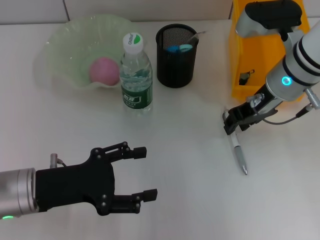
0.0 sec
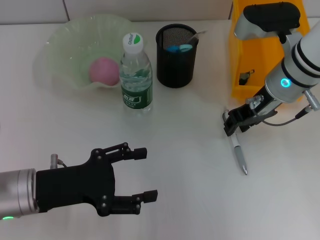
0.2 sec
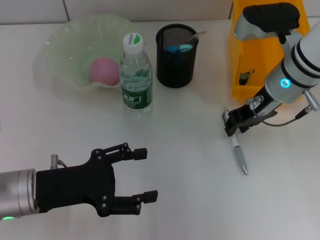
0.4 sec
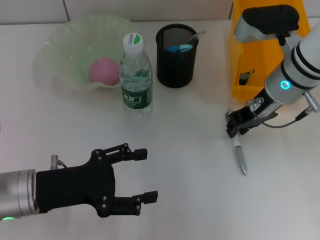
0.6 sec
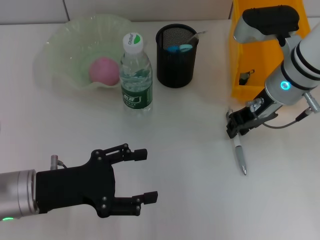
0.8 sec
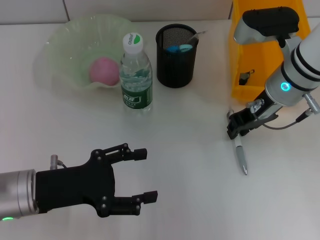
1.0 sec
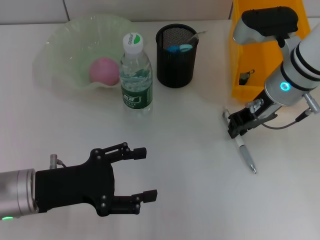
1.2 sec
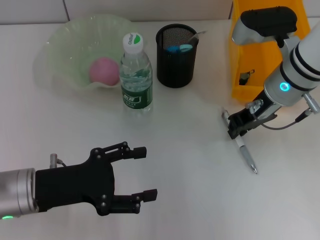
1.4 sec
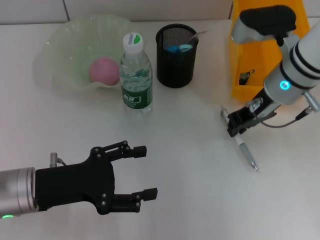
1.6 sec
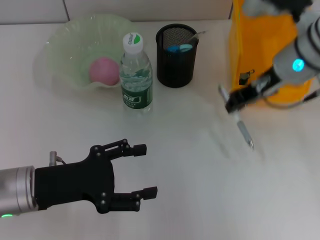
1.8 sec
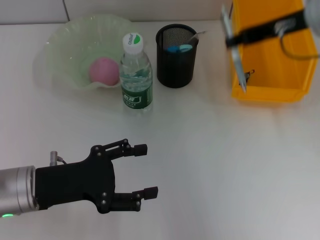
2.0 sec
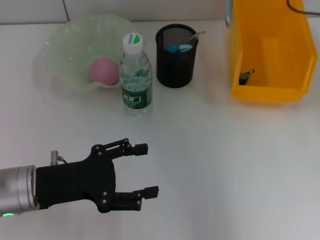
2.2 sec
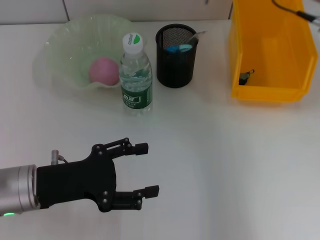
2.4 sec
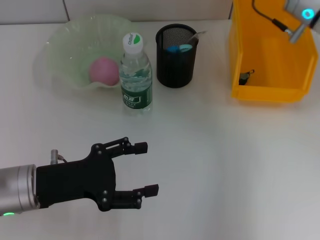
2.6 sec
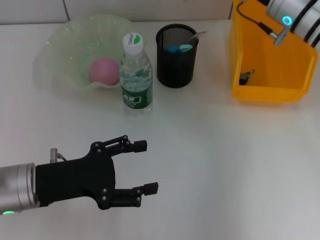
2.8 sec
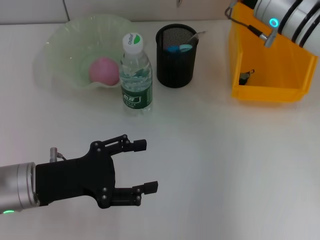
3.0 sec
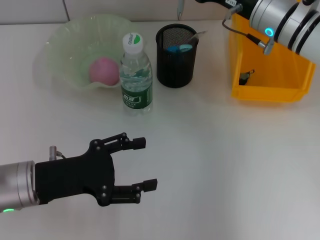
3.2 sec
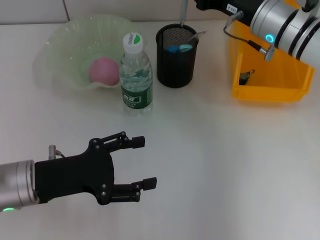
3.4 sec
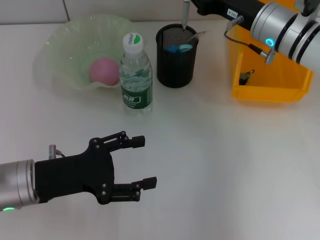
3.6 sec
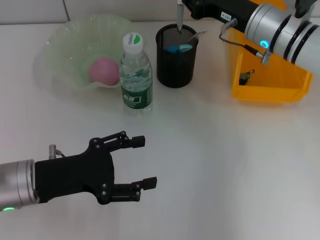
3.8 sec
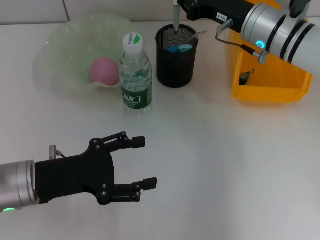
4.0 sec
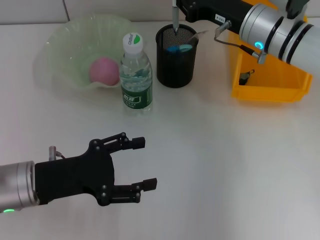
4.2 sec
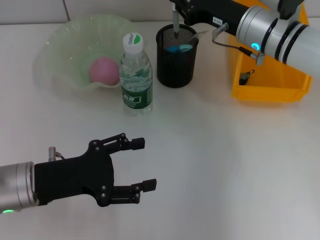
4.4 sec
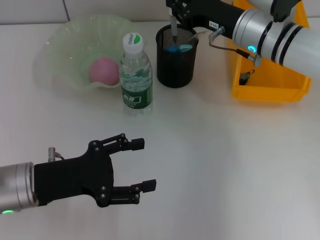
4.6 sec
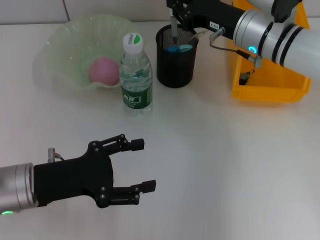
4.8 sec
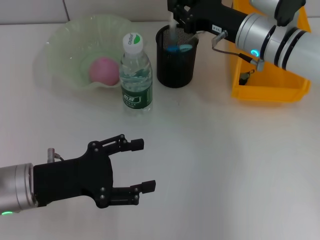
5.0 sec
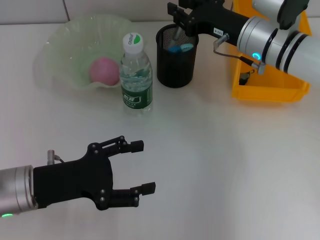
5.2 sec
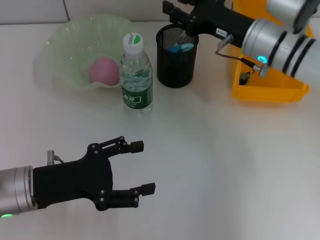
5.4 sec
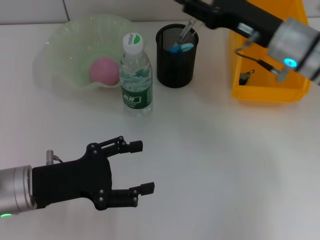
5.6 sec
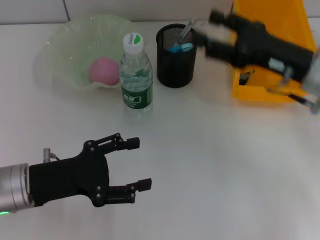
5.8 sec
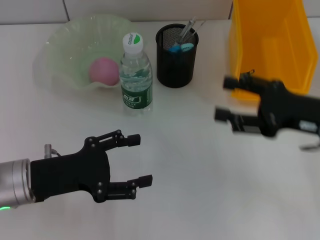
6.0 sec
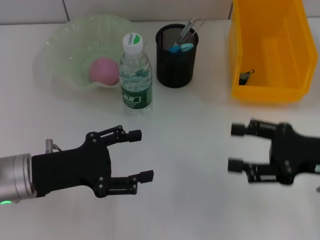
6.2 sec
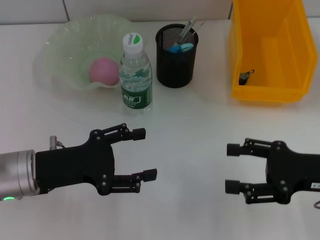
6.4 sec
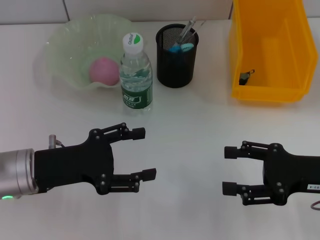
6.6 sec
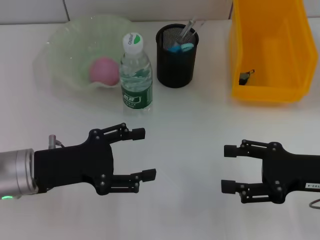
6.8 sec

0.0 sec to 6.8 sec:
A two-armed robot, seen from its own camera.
Step, 1.2 sec to 5.2 sec: Place the gray spring-action pen into the pen holder with the right hand.
0.0 sec to 1.4 sec: Neither gripper changes place.
1.4 sec to 2.8 sec: The right gripper goes upward and returns, about 15 cm each way.
2.8 sec to 5.4 sec: The grippers move only a little.
5.4 sec to 6.8 sec: The right gripper moves backward and to the right, roughly 20 cm, and opens up.

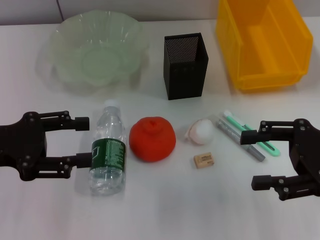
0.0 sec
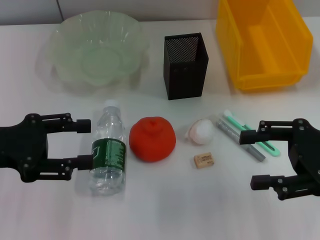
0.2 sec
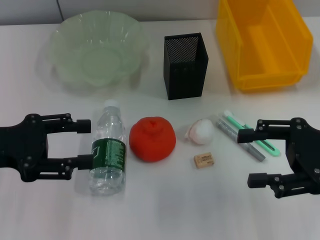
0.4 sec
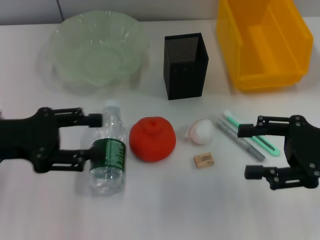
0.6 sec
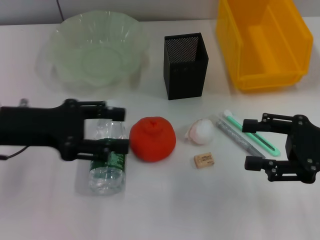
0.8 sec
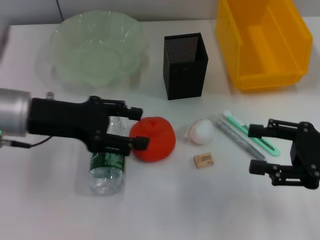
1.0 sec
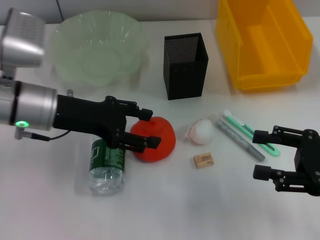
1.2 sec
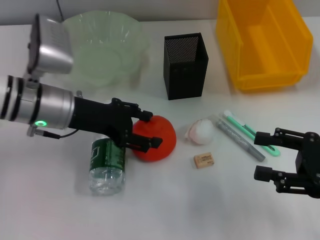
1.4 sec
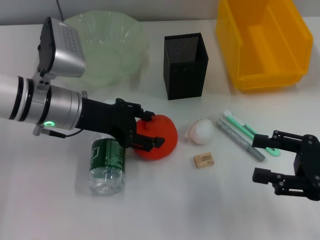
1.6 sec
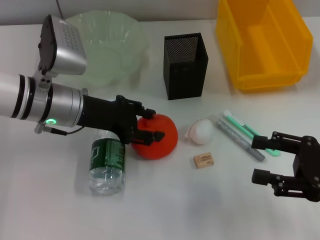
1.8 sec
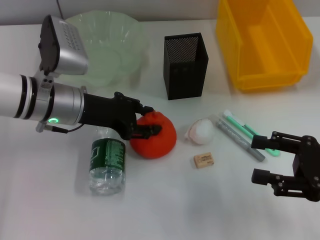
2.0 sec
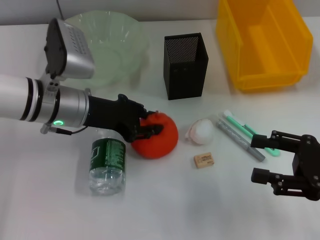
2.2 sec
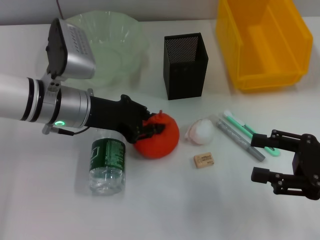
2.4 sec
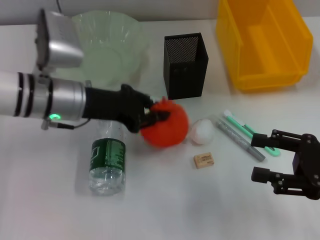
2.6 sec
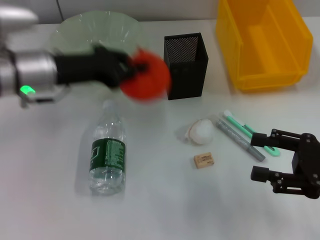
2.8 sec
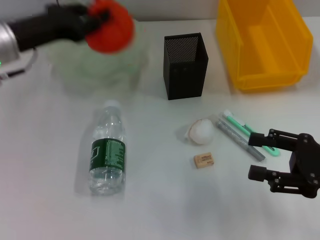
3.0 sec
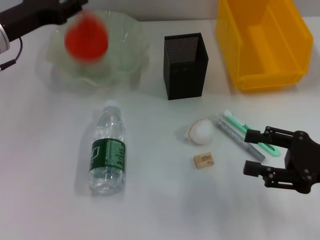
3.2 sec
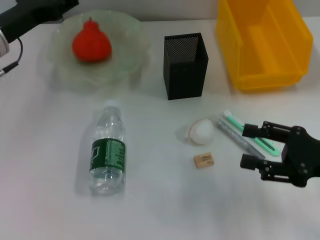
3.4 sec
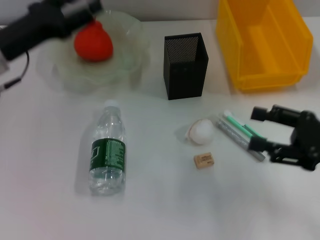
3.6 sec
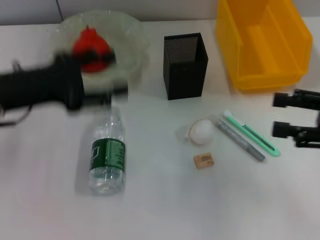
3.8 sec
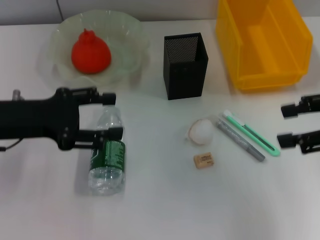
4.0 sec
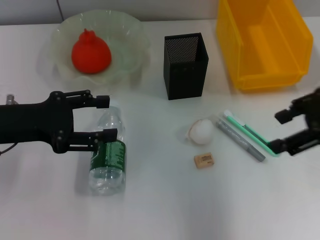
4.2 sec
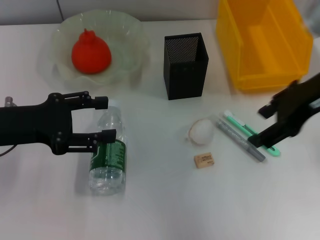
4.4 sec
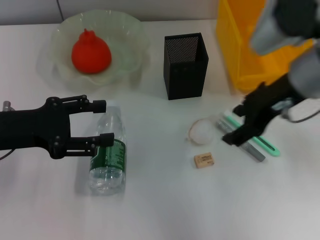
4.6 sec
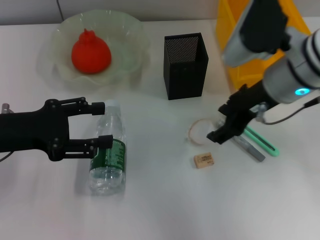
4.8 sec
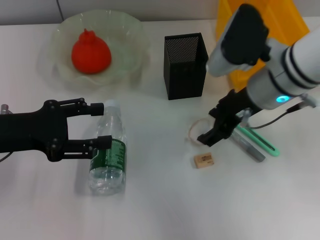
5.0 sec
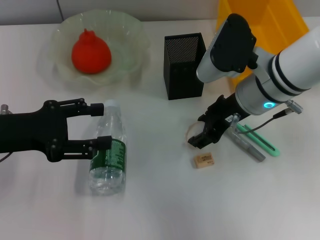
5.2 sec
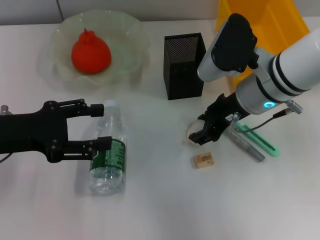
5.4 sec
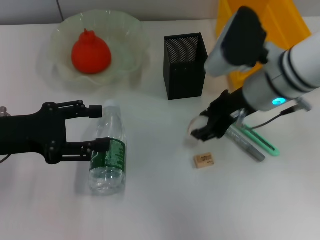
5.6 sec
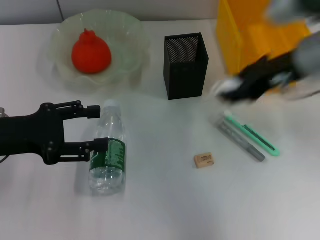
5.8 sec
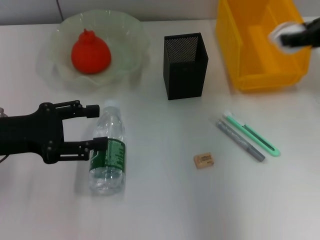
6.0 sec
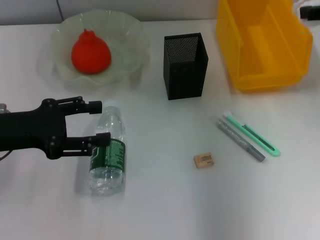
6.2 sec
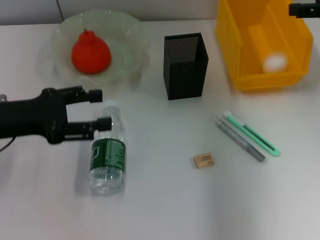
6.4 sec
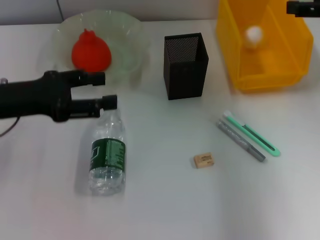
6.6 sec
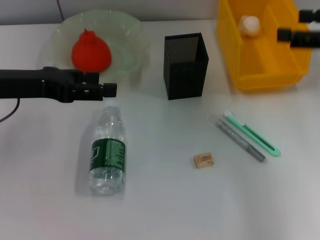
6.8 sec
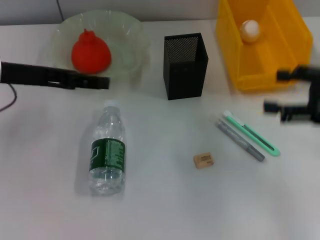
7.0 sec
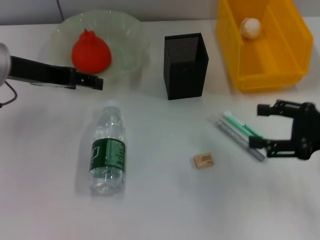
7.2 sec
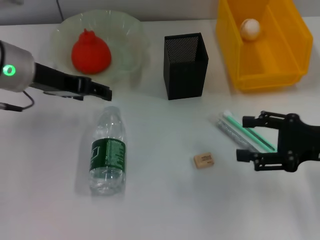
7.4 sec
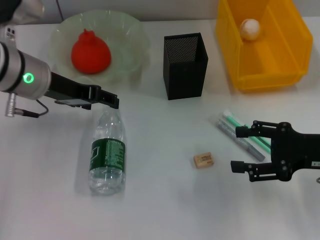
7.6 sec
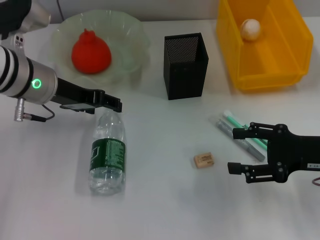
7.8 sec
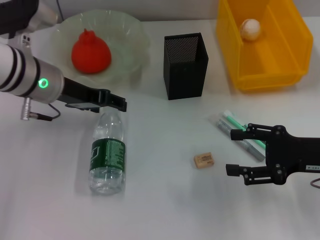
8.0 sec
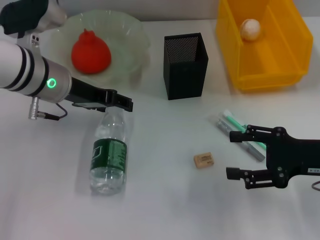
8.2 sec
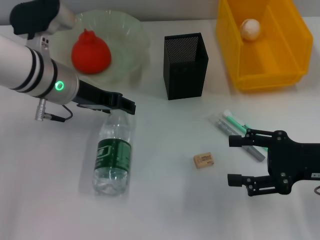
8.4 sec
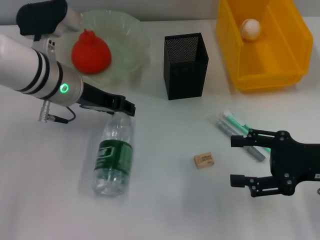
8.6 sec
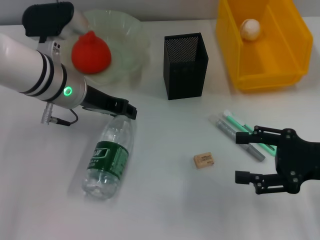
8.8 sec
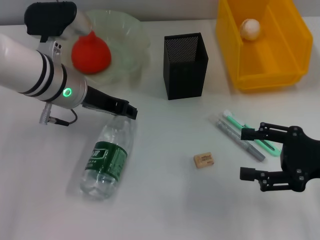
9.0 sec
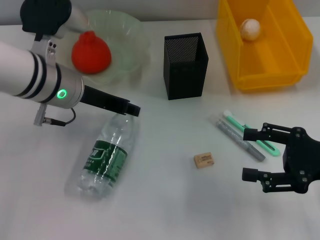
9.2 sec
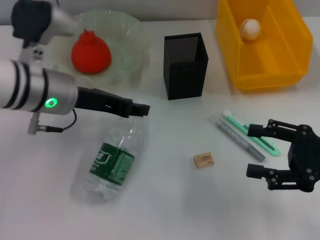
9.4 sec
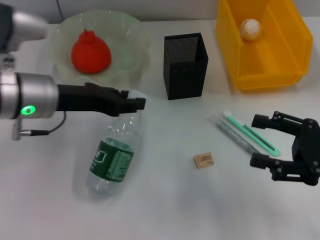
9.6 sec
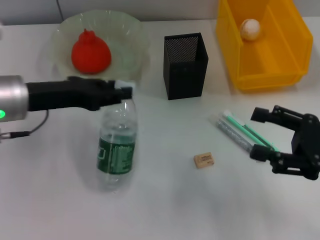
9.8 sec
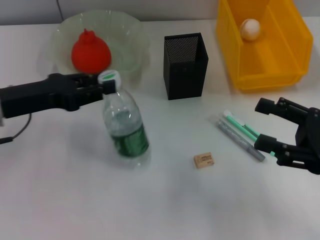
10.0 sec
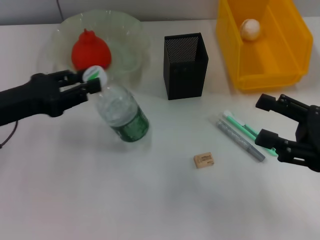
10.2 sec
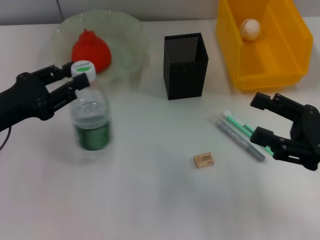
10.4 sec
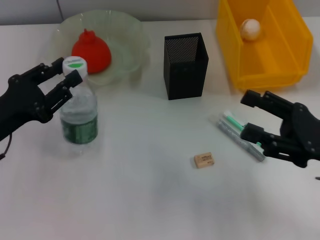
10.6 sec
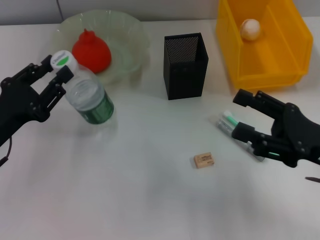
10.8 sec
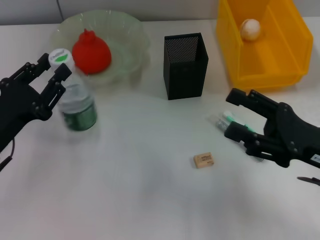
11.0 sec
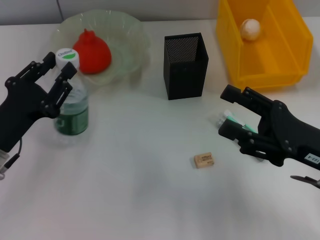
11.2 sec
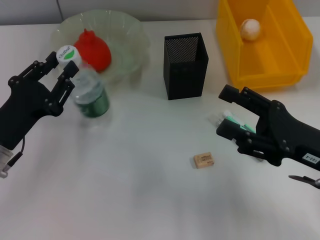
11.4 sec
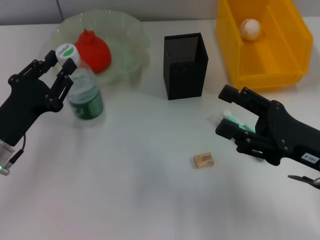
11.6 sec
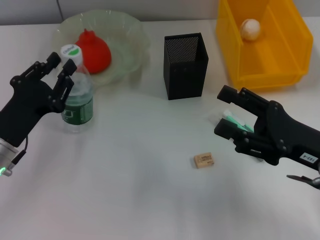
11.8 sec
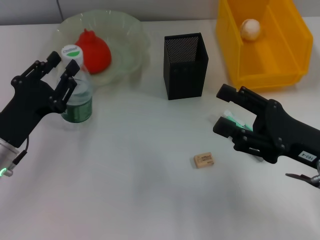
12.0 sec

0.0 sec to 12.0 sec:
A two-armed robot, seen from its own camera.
Step, 0.0 sec to 2.4 sec: Grab the orange with the left hand.
Step, 2.6 sec to 3.4 sec: Place the orange into the fruit bowl with the left hand.
Step, 3.6 sec to 5.2 sec: Grab the paper ball with the right hand.
Step, 5.4 sec to 6.4 sec: Place the paper ball into the trash can with the right hand.
Step, 6.6 sec to 8.6 sec: Grab the water bottle with the left hand.
0.0 sec to 1.6 sec: The left gripper goes roughly 15 cm to the right and forward. The right gripper changes place by roughly 5 cm.
1.6 sec to 3.0 sec: The left gripper moves to the left and upward, roughly 10 cm, and closes up.
3.0 sec to 4.4 sec: The left gripper moves backward, roughly 10 cm, and opens. The right gripper travels upward, forward and to the left by approximately 20 cm.
4.4 sec to 6.0 sec: The right gripper heads to the right, covering roughly 5 cm.
6.0 sec to 7.6 sec: The left gripper goes about 15 cm forward and to the right. The right gripper goes about 20 cm downward and backward, and opens up.
7.6 sec to 9.0 sec: The left gripper closes.
9.0 sec to 10.4 sec: The left gripper is displaced to the left and backward by approximately 15 cm.
10.4 sec to 12.0 sec: The left gripper is displaced downward by some 5 cm.

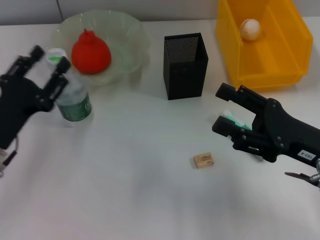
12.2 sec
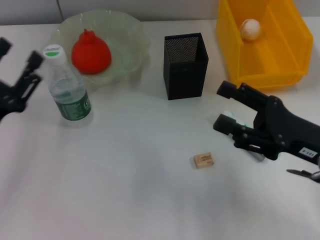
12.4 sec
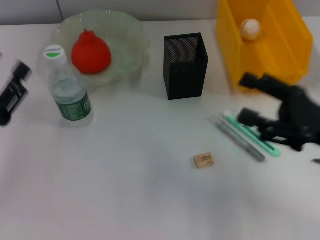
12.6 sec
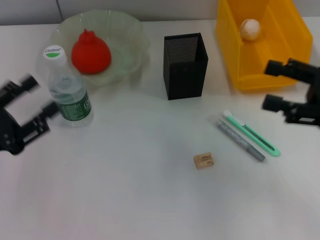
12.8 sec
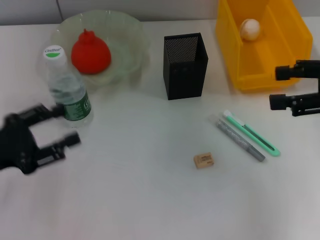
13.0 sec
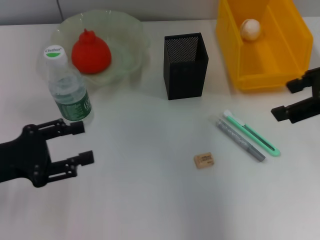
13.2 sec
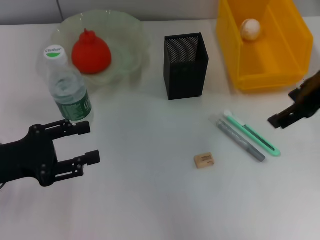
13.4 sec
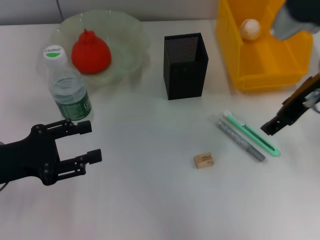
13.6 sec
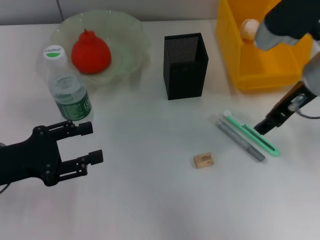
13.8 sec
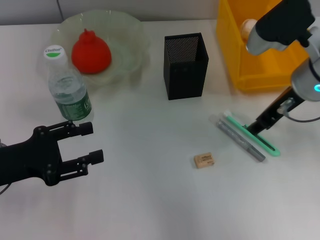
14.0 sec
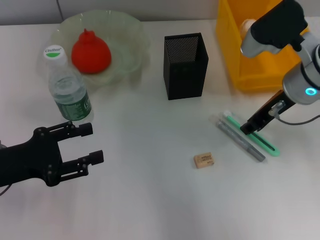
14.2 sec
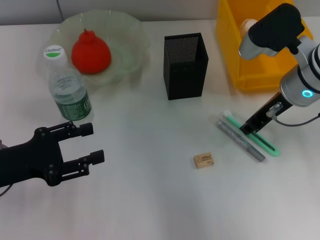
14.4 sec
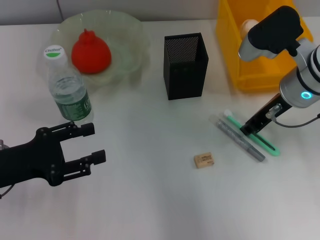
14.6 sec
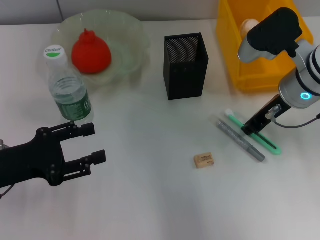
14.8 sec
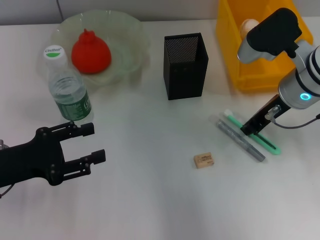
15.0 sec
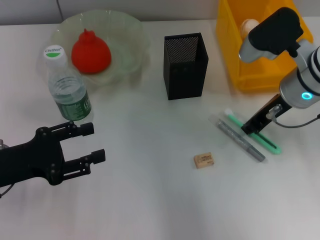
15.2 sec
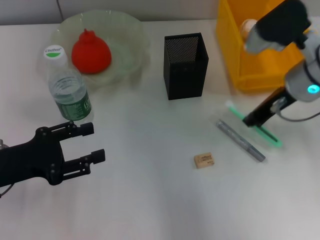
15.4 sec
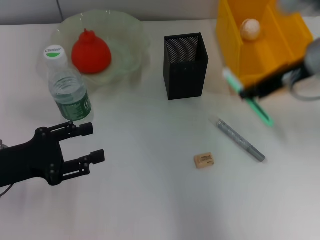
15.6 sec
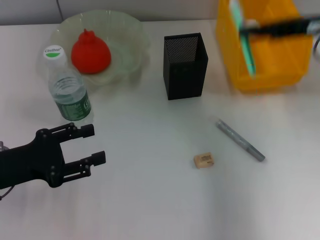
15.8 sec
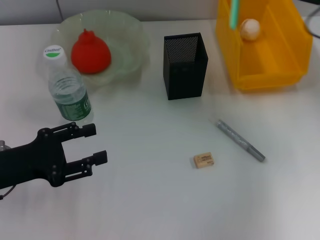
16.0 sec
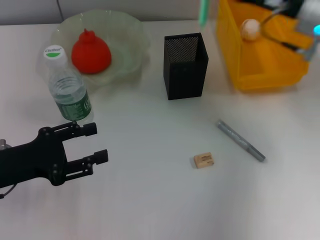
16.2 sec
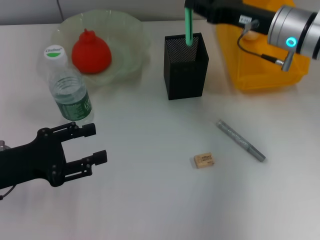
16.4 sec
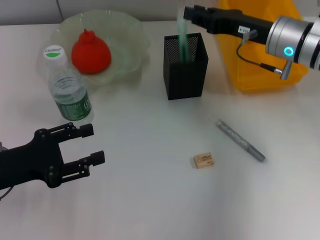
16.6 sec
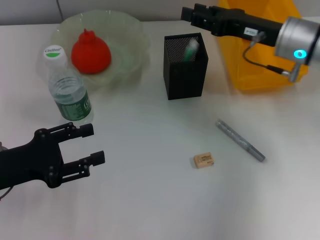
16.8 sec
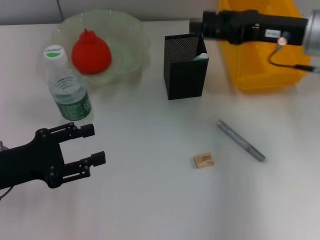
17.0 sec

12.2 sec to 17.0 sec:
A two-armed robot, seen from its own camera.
Step, 12.4 sec to 15.0 sec: Grab the blue utility knife with the right hand.
Step, 15.2 sec to 16.6 sec: Place the blue utility knife into the pen holder with the right hand.
12.2 sec to 13.8 sec: The right gripper shifts about 15 cm forward and upward. The left gripper opens.
13.8 sec to 15.4 sec: The right gripper closes.
15.4 sec to 17.0 sec: The right gripper swings up and down, roughly 10 cm each way, with 2 reversals, and opens up.
